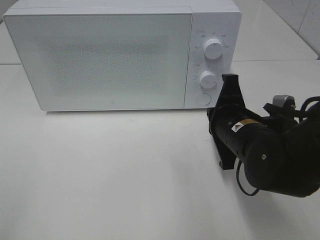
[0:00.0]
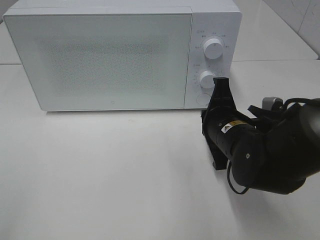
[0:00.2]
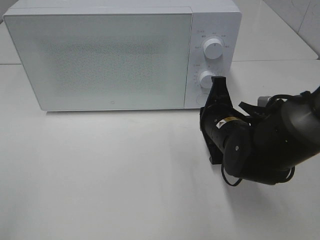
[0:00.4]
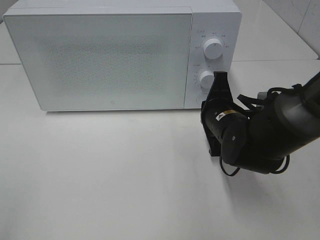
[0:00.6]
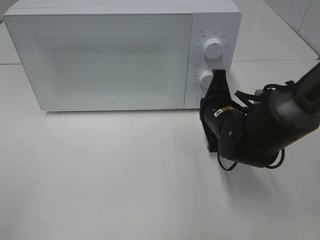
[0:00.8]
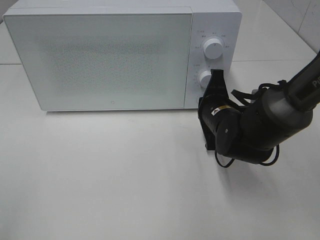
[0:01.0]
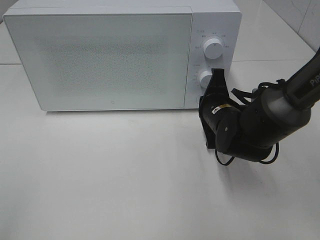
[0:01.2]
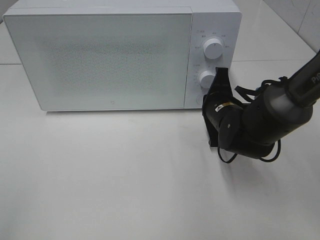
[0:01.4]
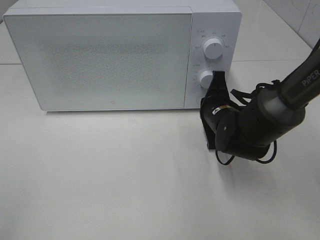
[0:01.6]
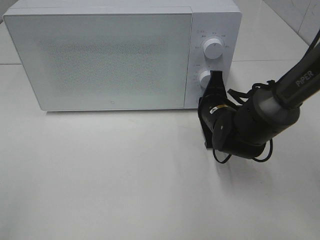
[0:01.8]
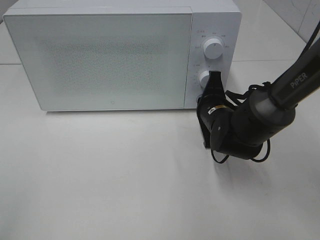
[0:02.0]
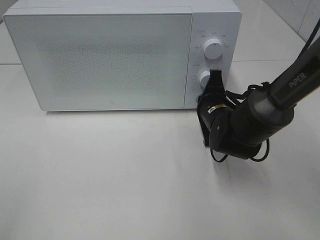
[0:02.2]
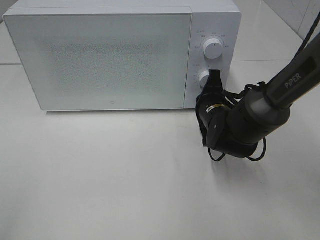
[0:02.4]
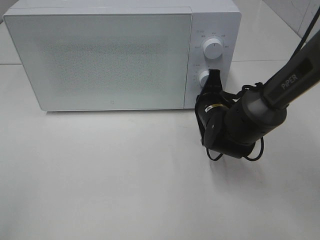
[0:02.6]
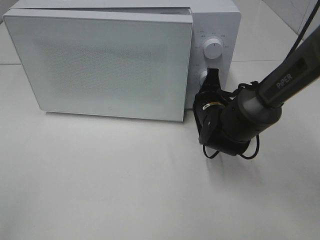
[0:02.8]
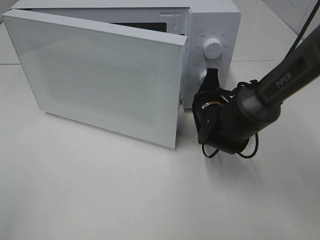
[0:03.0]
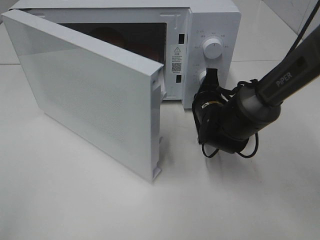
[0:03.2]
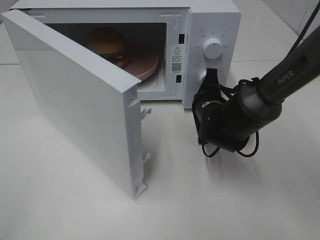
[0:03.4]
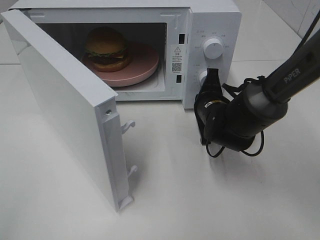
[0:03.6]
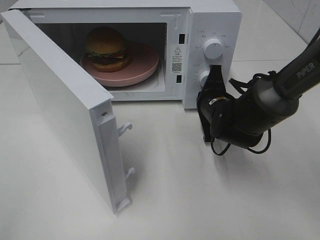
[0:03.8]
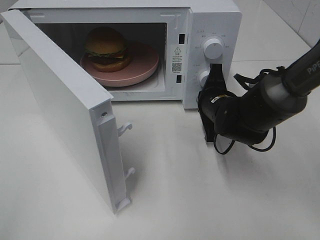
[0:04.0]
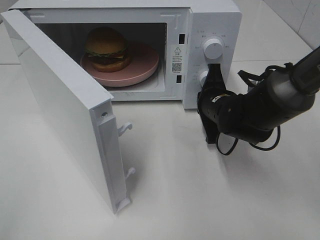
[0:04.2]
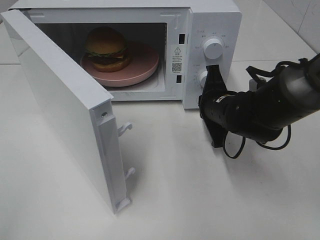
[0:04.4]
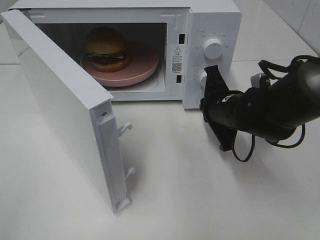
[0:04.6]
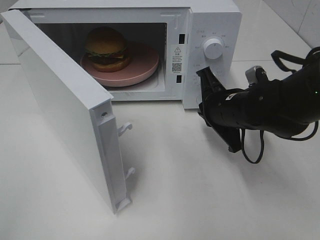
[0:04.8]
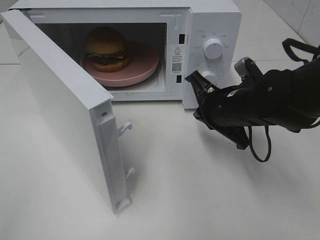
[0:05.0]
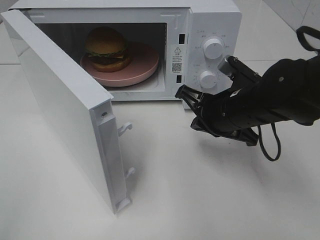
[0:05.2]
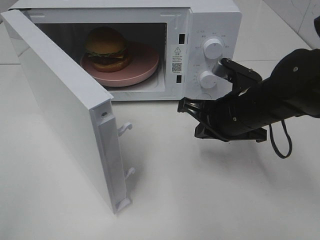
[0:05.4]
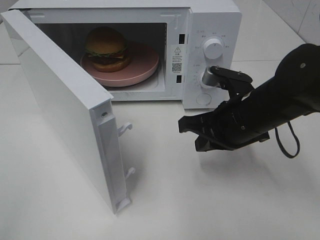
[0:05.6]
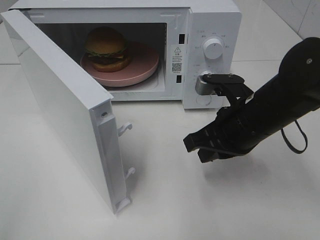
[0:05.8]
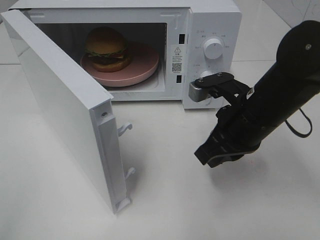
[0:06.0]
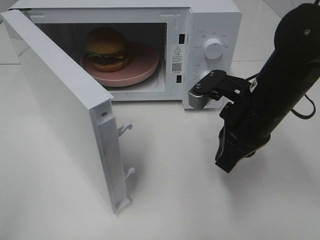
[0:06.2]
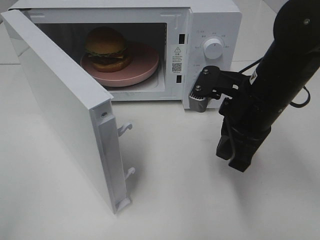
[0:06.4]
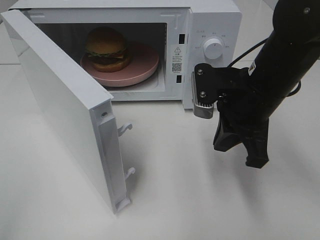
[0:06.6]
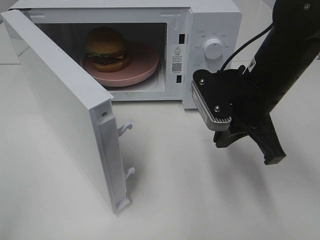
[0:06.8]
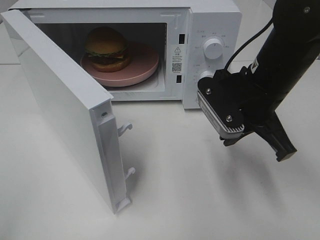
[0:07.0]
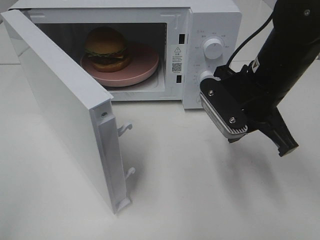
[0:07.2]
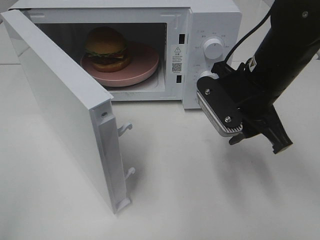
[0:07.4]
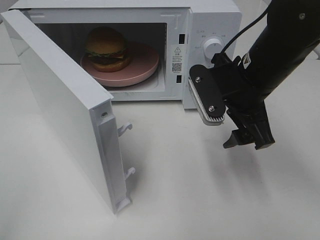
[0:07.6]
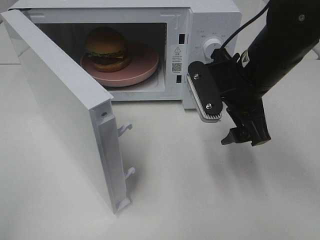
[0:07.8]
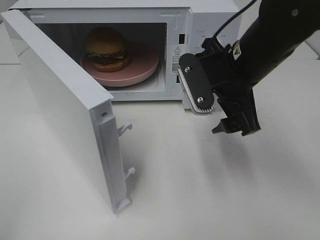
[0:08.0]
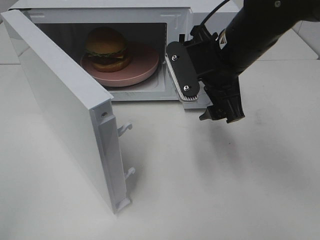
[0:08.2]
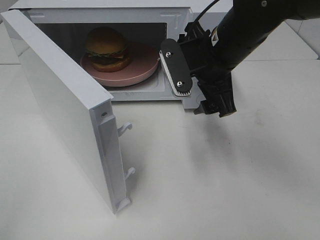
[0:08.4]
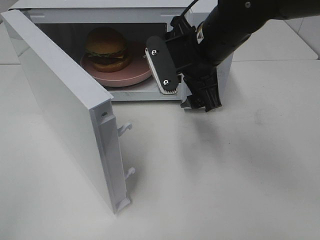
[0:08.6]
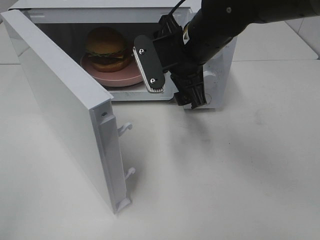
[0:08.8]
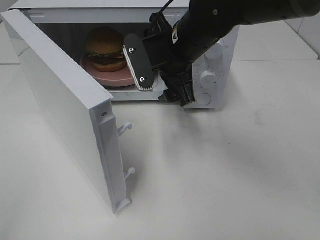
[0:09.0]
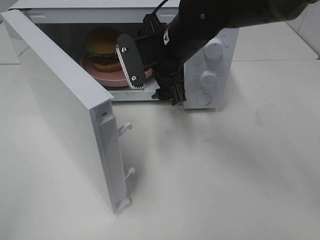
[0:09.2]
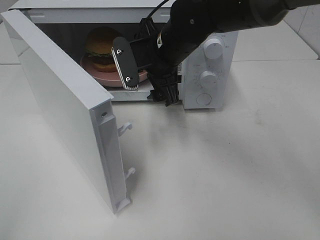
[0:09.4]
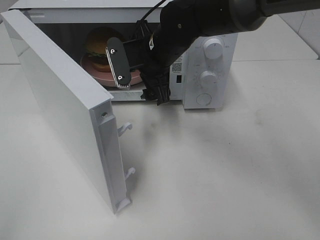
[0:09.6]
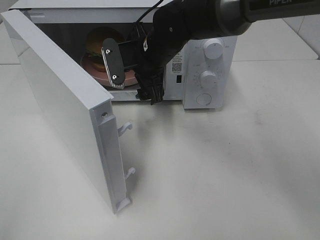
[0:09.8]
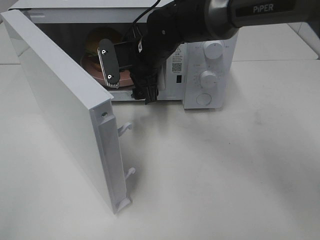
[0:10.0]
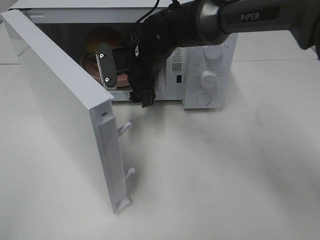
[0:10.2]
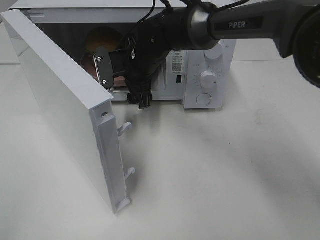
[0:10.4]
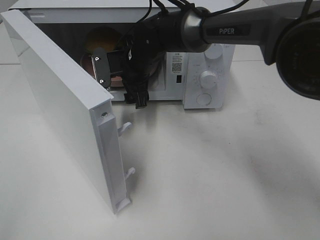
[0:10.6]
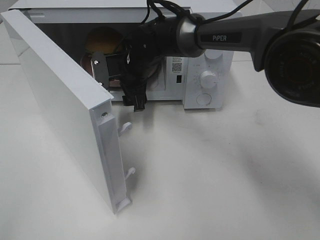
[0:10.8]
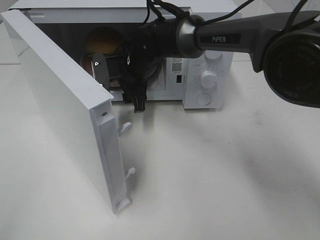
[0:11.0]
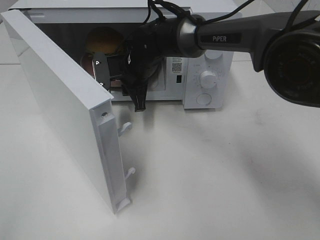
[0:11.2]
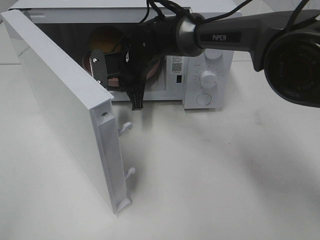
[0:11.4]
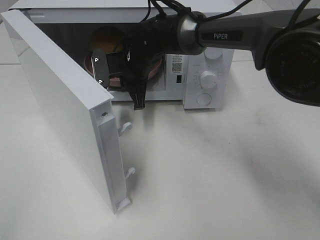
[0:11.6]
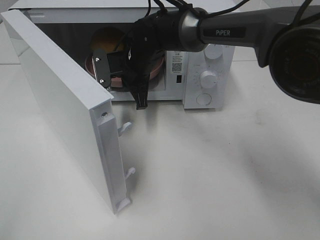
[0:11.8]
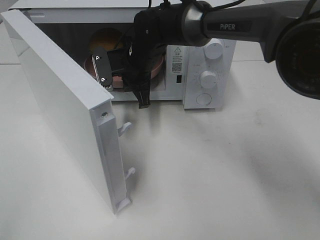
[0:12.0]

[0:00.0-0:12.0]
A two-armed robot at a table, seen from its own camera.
Task of the whole recording: Heat the burger.
Step, 0:00.0 to 0:04.4: Right hand: press the switch.
Step, 0:04.6 to 0:11.2: Right hand: grab the plate with the hamburger.
0:00.0 to 0:01.6: The right gripper is displaced forward by about 10 cm.
0:01.6 to 0:03.0: The grippers move only a little.
0:04.4 to 0:06.0: The right gripper shifts roughly 10 cm backward and upward.
0:06.0 to 0:07.6: The right gripper opens up.
0:07.6 to 0:09.0: The right gripper travels to the left and forward by approximately 10 cm.
0:09.0 to 0:10.4: The right gripper heads forward, downward and to the left, covering approximately 10 cm.
0:10.4 to 0:12.0: The right gripper closes.

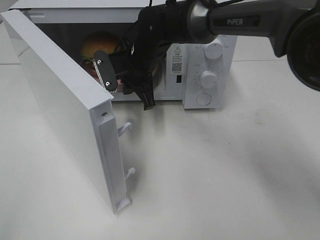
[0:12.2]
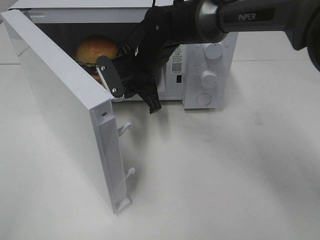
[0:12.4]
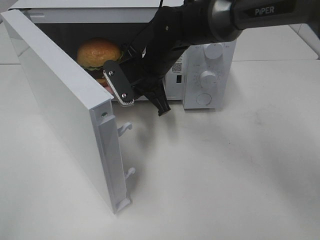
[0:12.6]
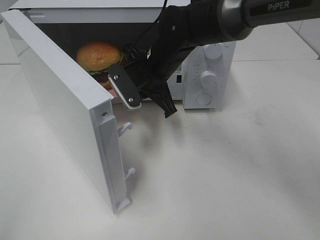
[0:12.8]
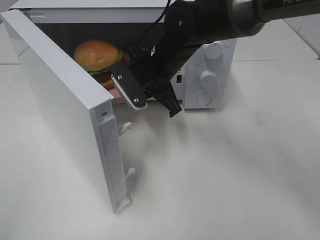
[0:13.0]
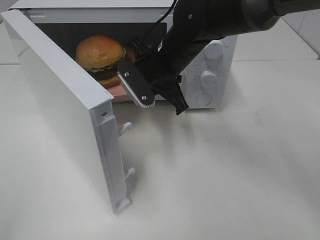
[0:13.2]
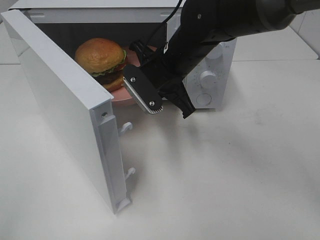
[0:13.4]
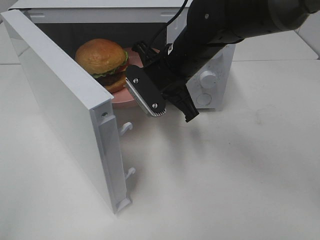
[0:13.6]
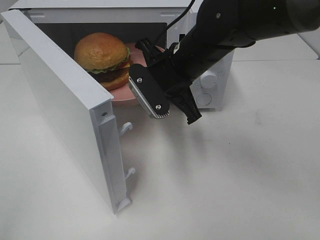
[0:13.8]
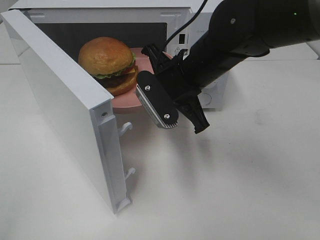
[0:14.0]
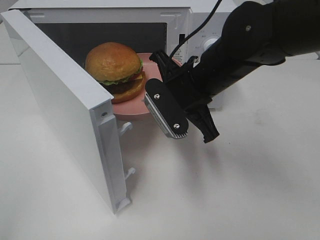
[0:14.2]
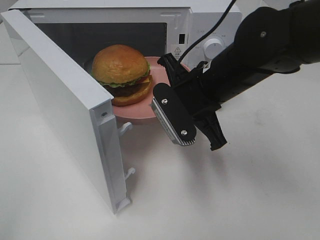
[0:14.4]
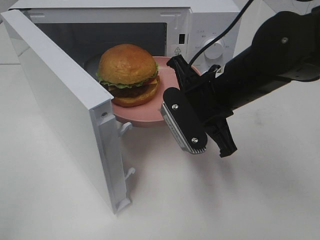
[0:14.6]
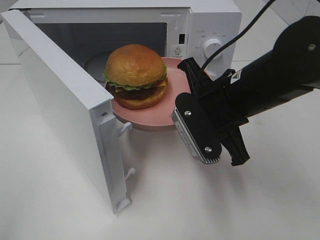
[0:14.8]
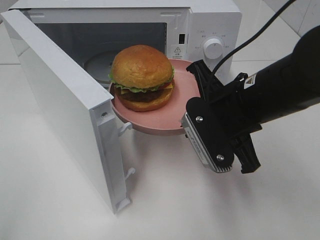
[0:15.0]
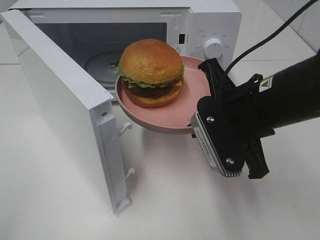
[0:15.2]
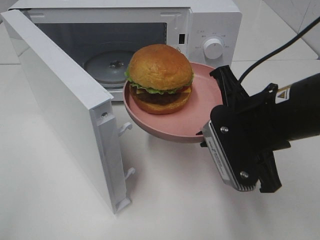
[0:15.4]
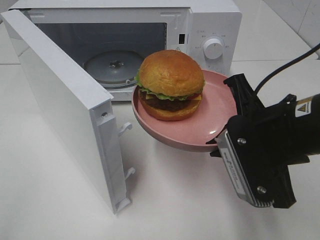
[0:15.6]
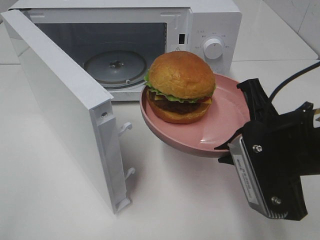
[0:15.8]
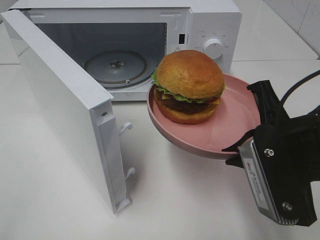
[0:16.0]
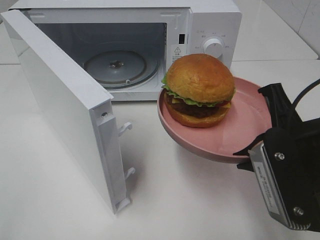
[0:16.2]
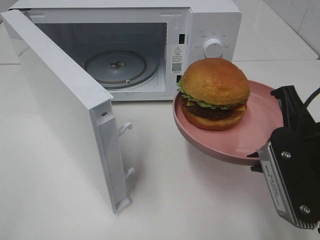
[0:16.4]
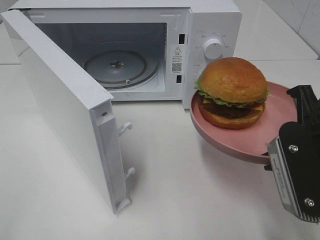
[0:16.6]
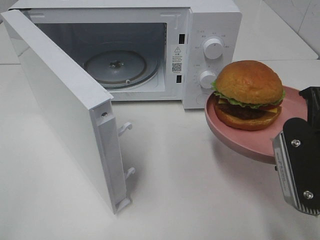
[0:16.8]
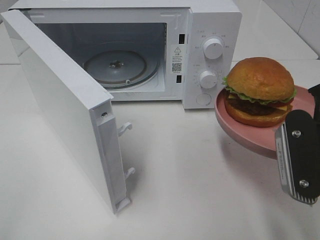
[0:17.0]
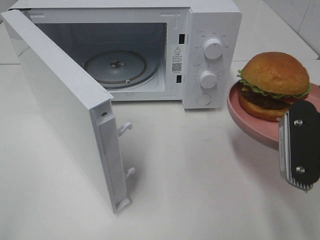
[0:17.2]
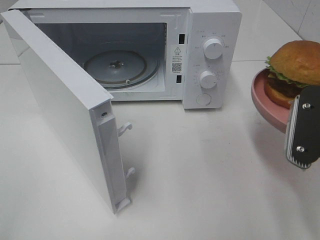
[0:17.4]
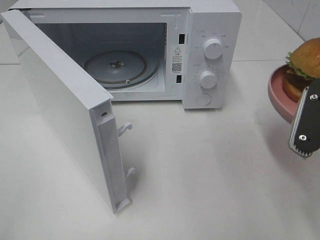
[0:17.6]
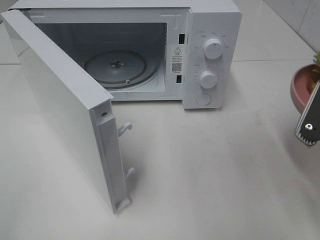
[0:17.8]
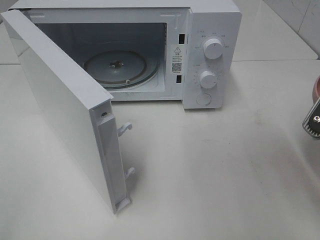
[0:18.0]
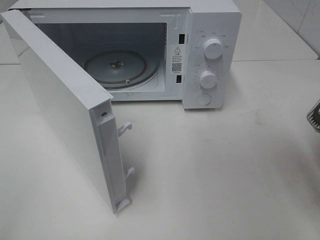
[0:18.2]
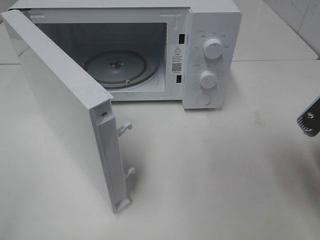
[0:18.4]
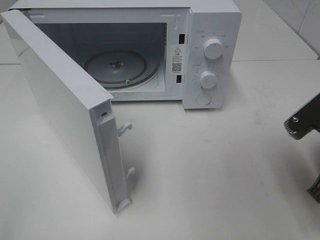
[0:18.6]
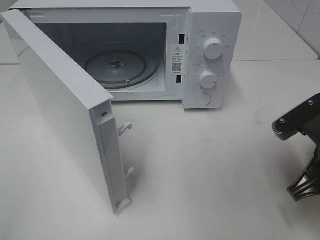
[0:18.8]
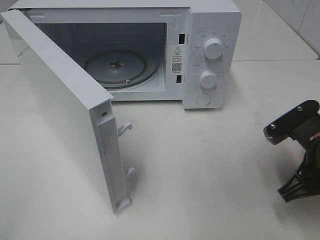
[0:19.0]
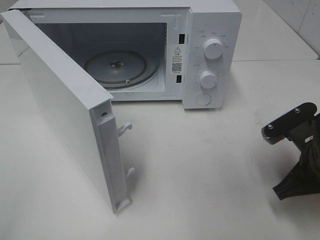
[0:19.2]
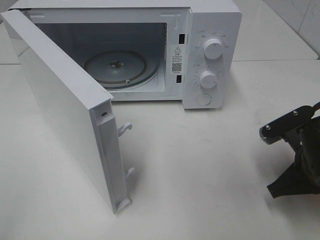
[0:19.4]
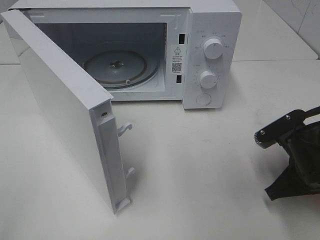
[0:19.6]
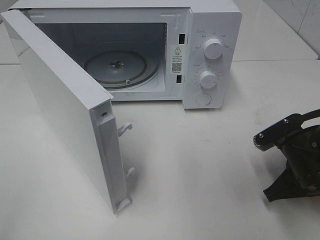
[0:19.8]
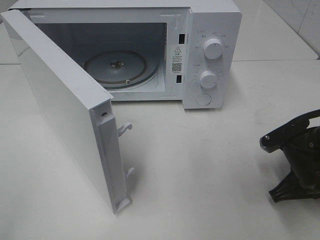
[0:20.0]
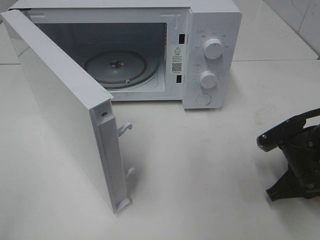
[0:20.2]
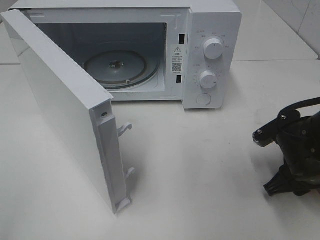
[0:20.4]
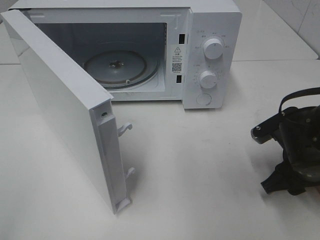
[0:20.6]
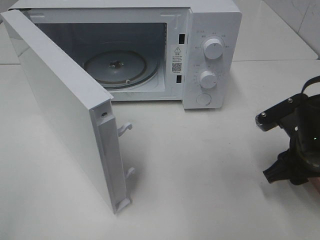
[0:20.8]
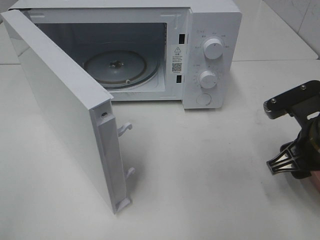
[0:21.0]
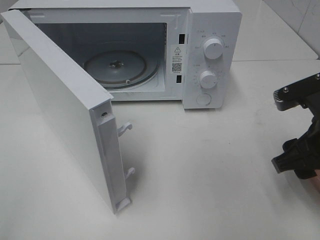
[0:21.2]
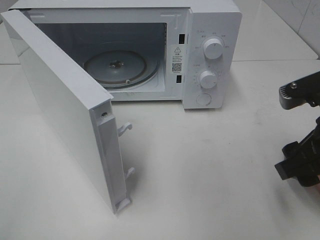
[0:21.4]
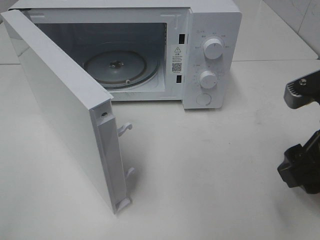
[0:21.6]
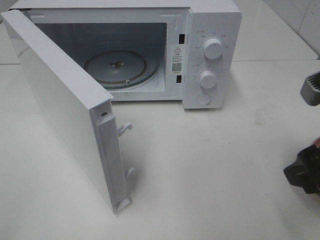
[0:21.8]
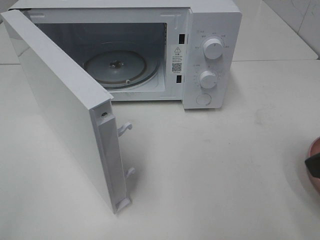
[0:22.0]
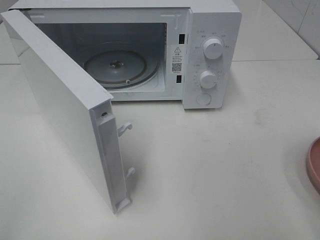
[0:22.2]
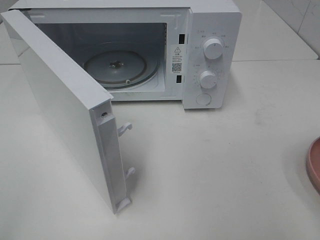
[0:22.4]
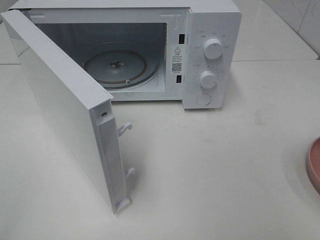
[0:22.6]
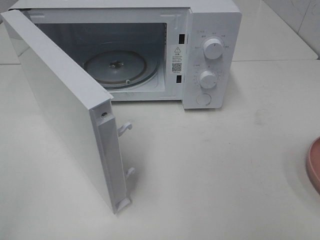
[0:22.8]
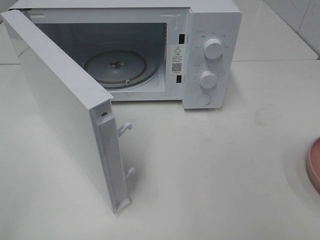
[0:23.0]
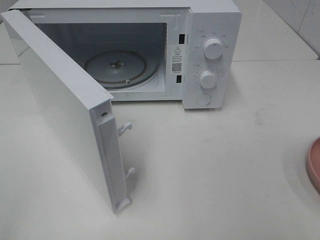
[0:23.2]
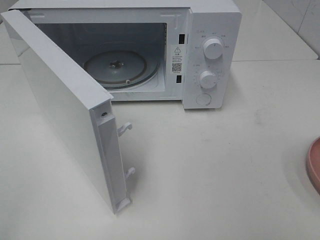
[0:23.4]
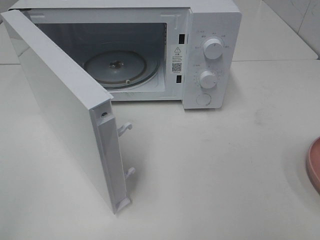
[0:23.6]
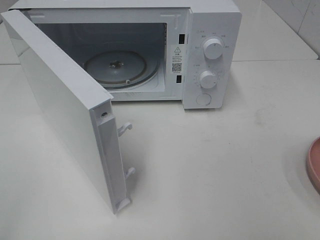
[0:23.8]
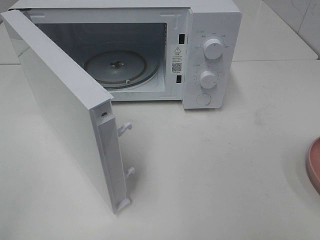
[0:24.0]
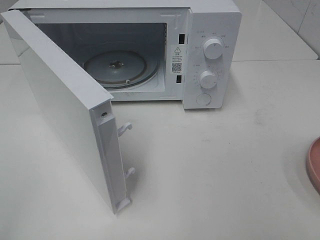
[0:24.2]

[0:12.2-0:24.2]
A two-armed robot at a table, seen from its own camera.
Task of the whole recording: Heat the burger.
Step, 0:12.2 to 0:20.2: Right hand: place the plate on the table.
0:12.2 to 0:13.8: The right gripper moves backward and to the right, some 10 cm.
0:13.8 to 0:15.2: The right gripper is displaced backward and to the right by about 15 cm.
0:15.2 to 0:16.6: The right gripper moves backward and to the right, about 10 cm.
0:16.6 to 0:18.2: The right gripper shifts about 5 cm to the right.
0:18.2 to 0:19.8: The right gripper heads downward, covering some 15 cm.
0:19.8 to 0:21.2: The right gripper goes approximately 10 cm upward, and opens up.
0:21.2 to 0:22.6: The right gripper moves backward, upward and to the right, roughly 20 cm.
